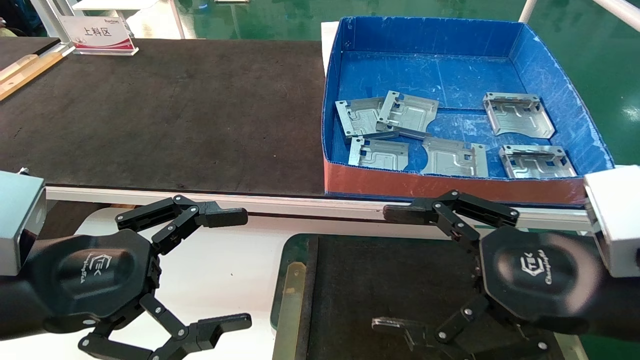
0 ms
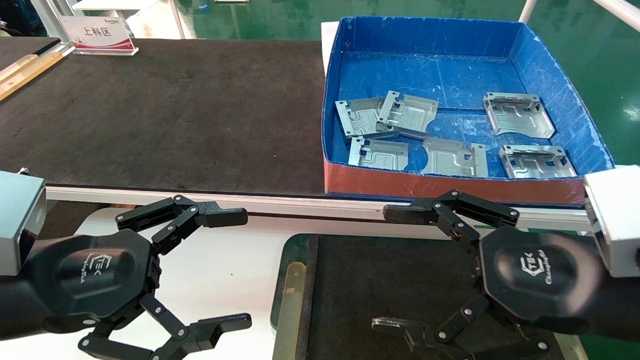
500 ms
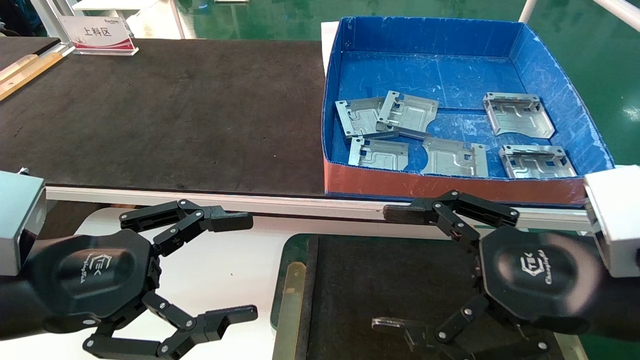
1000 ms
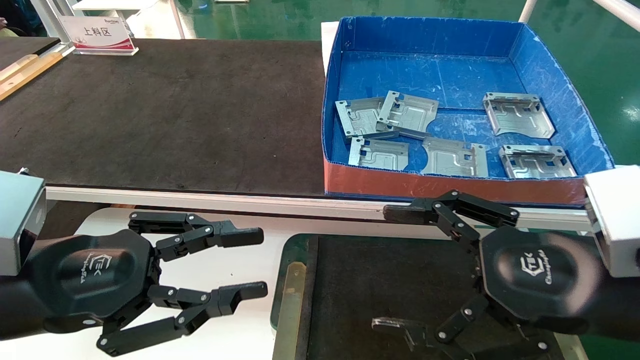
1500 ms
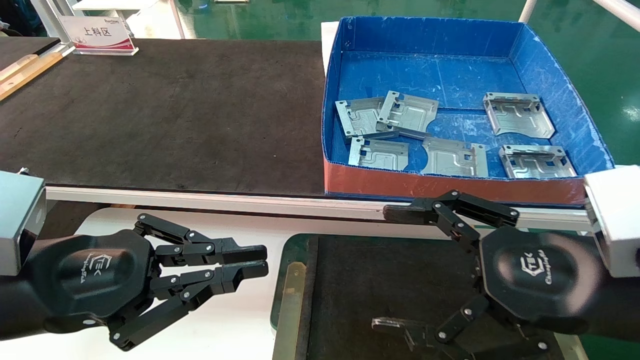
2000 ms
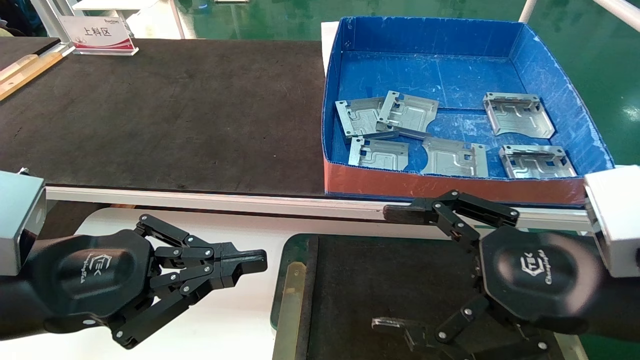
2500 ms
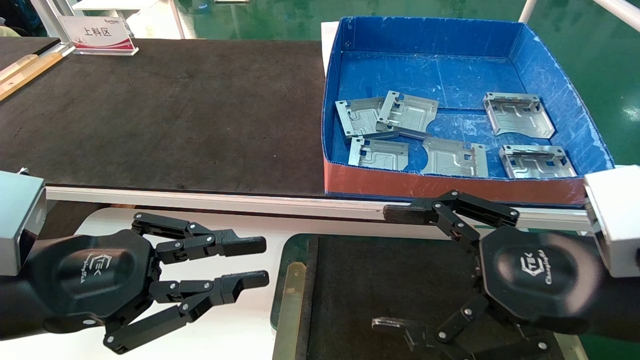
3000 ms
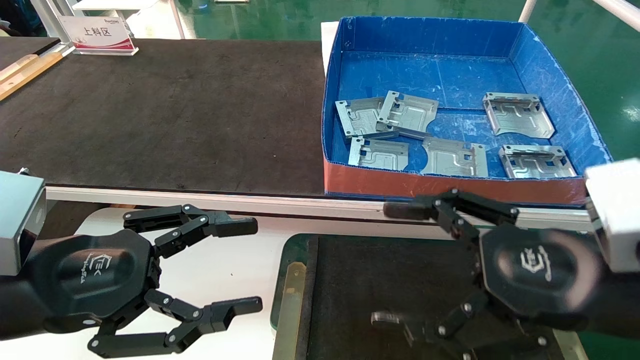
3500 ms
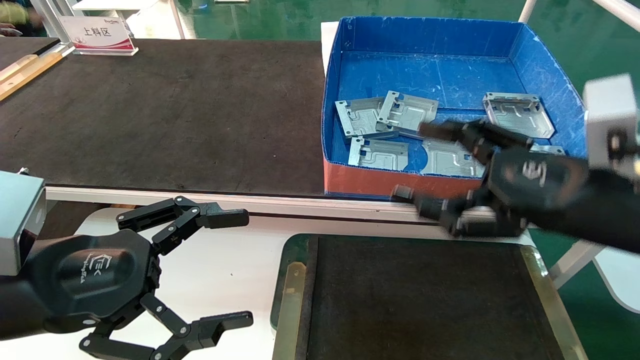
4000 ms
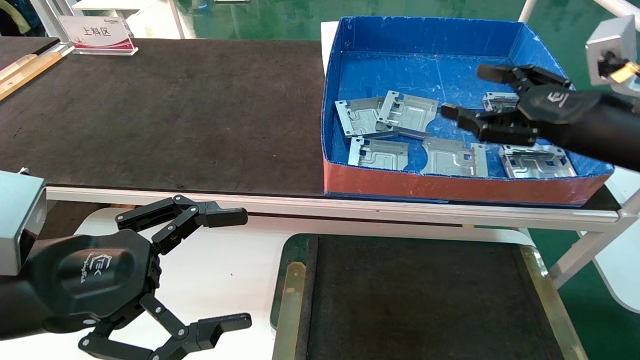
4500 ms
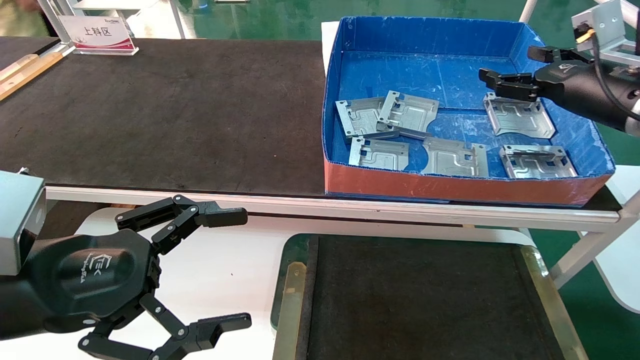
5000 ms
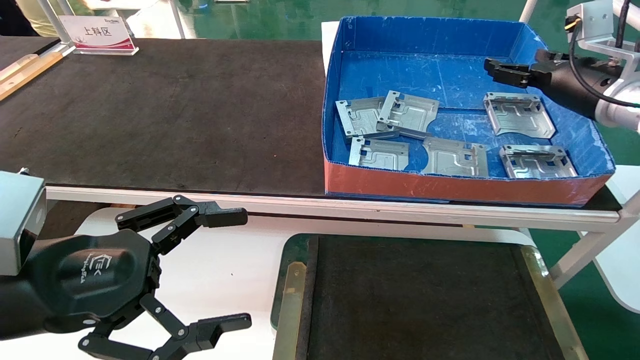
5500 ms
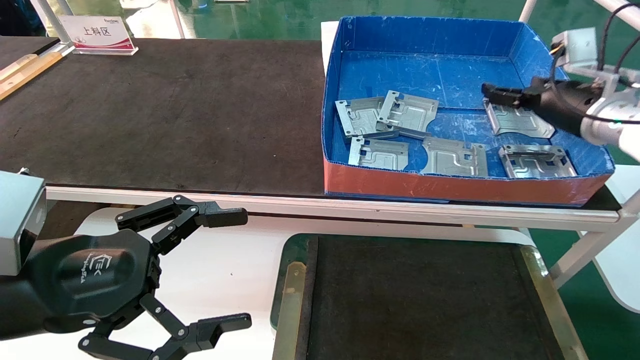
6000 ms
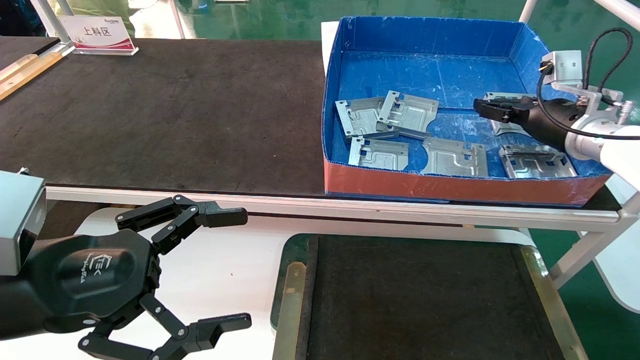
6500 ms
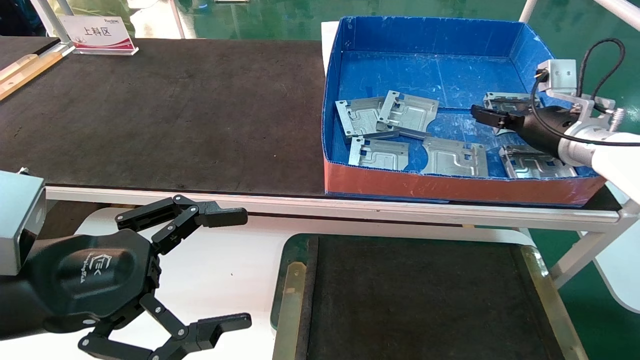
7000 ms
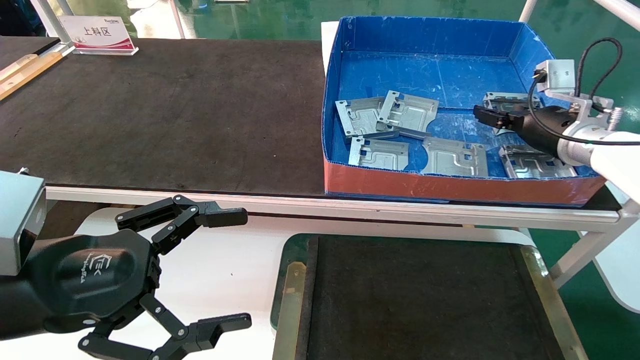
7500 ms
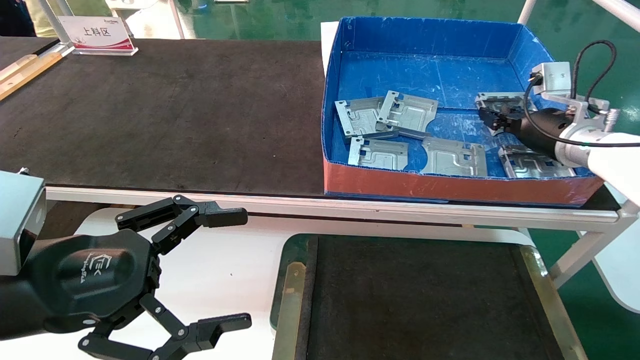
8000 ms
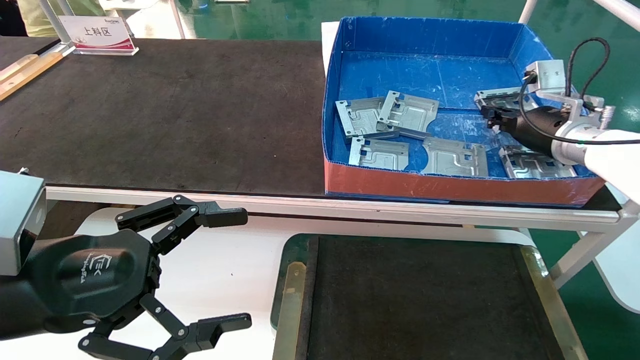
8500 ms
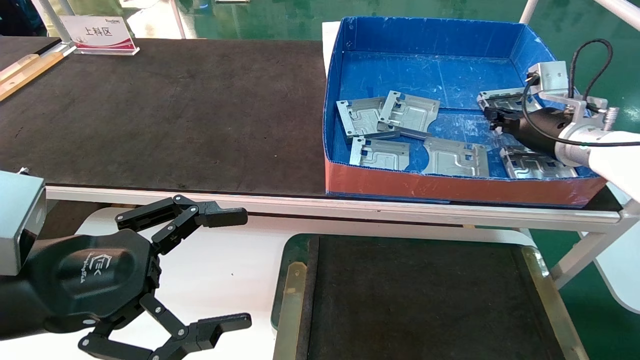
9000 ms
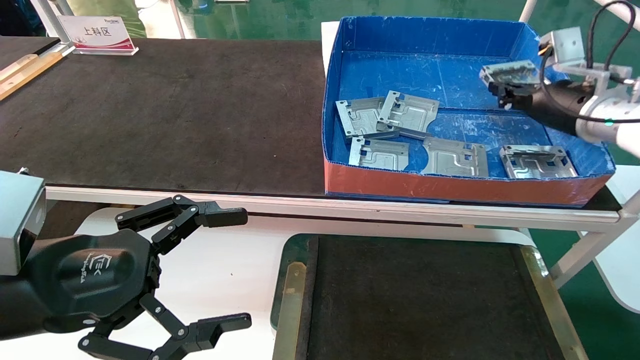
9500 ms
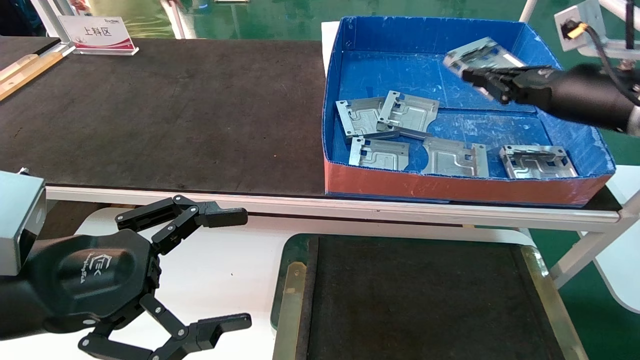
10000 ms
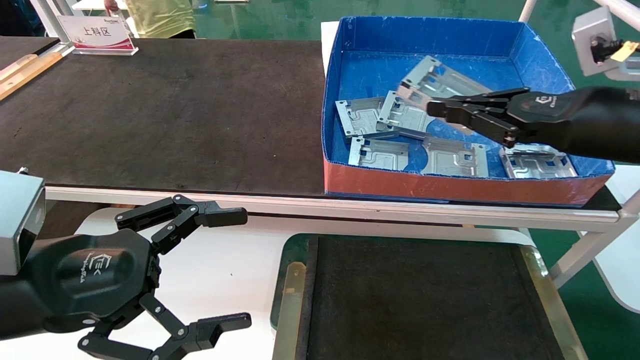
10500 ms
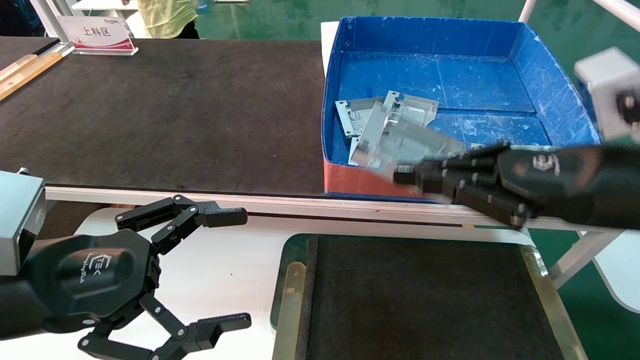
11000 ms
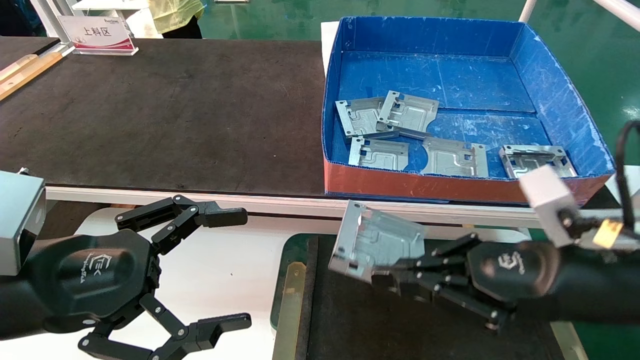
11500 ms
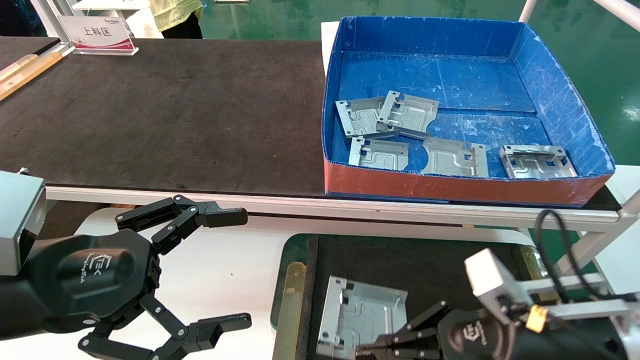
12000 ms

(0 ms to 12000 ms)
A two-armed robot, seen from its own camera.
Task of the whole recording: pick up parts and place them into a black container.
Step, 4000 ms - 8500 ms: Pick up the hard drive bracket from the feeding area.
0 ms - 2000 ms: The left gripper closes.
2000 ms - 4000 ms: The right gripper travels forward by roughly 5 cm. Meanwhile the left gripper opens.
4000 ms - 6000 ms: The right gripper moves forward and to the right, about 25 cm.
6000 ms - 8000 ms: The right gripper closes up.
8000 ms - 10000 ms: The right gripper goes some 10 cm backward and upward, and closes its fingers.
10000 ms - 12000 ms: The right gripper is displaced downward, backward and to the left by about 25 cm.

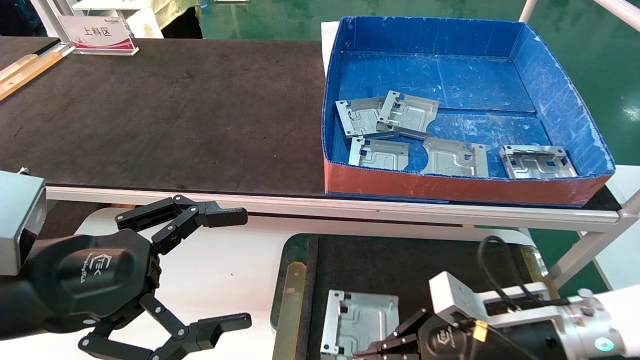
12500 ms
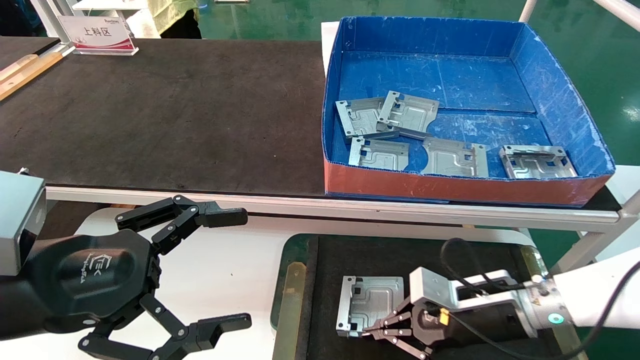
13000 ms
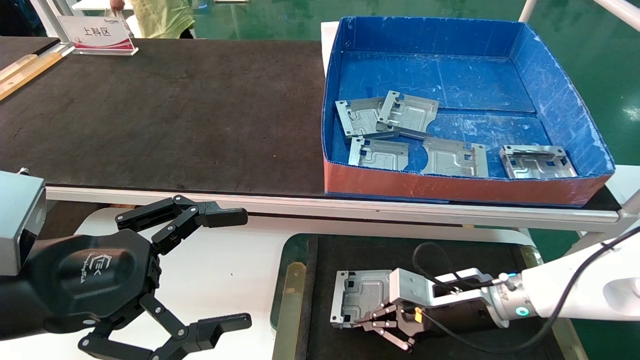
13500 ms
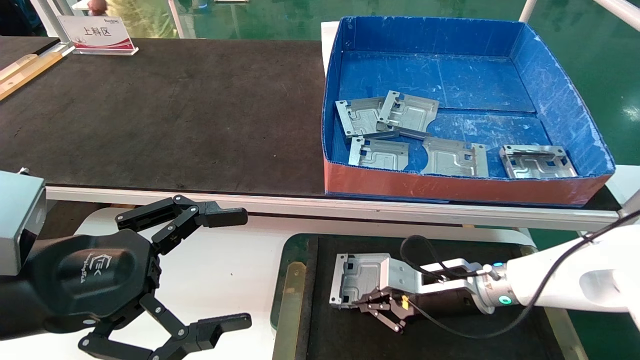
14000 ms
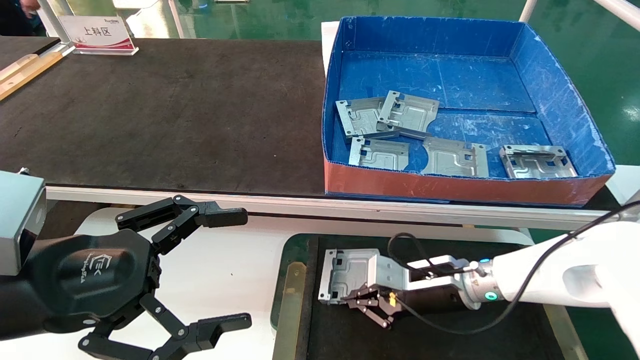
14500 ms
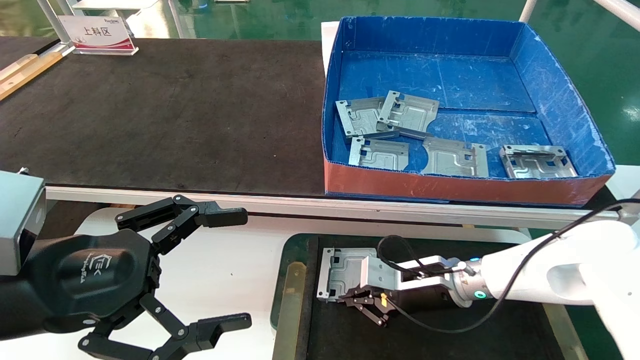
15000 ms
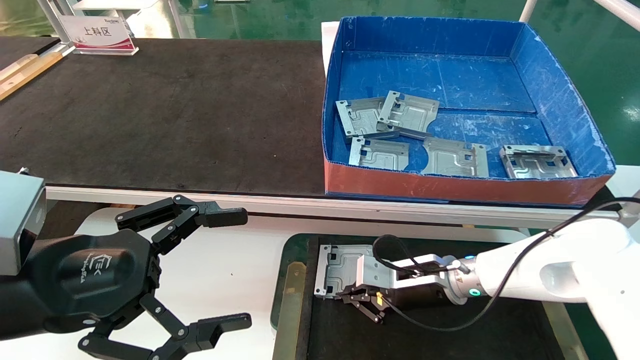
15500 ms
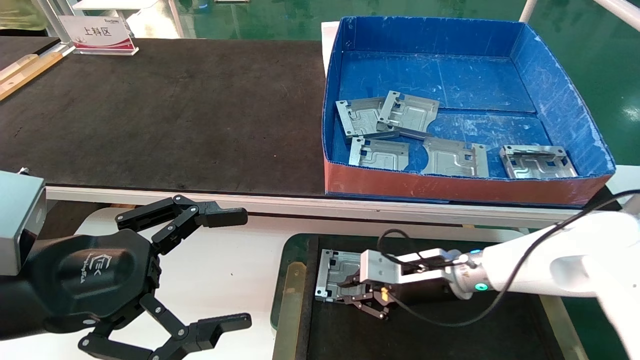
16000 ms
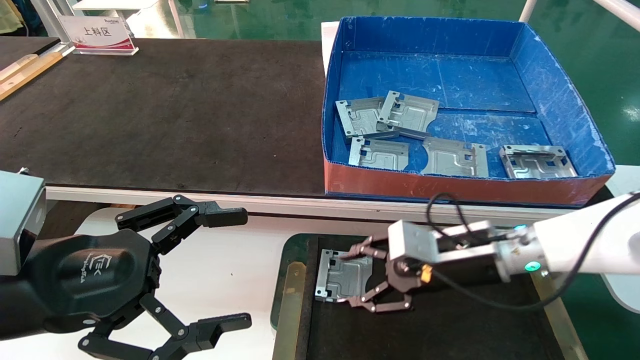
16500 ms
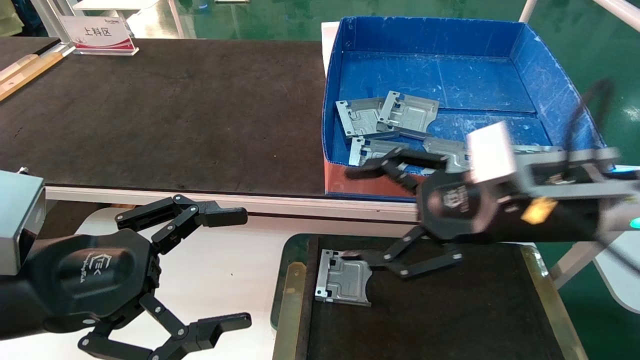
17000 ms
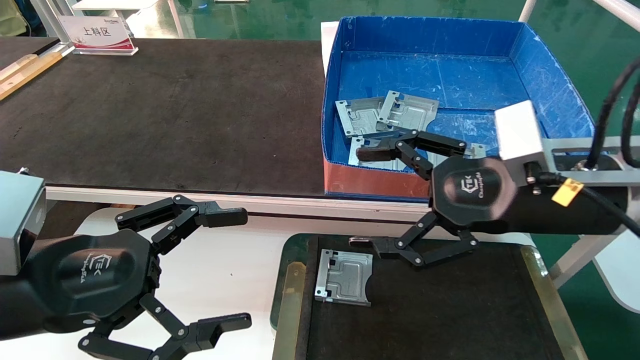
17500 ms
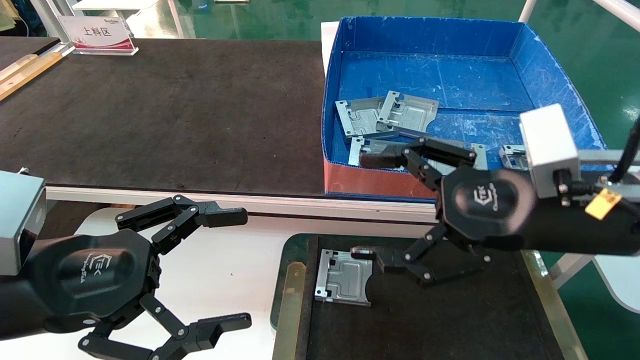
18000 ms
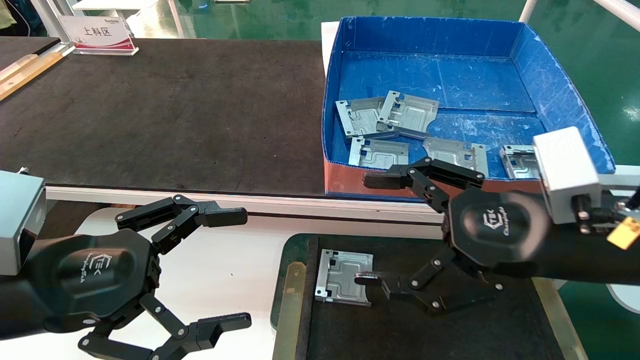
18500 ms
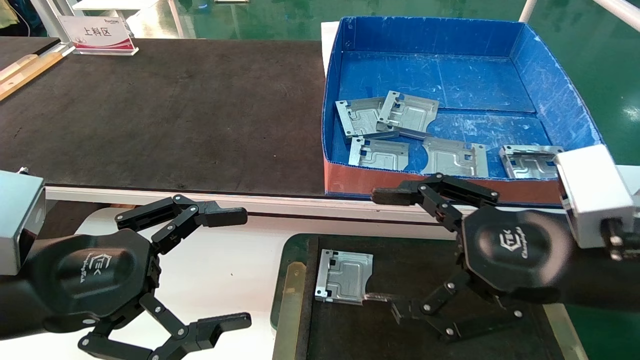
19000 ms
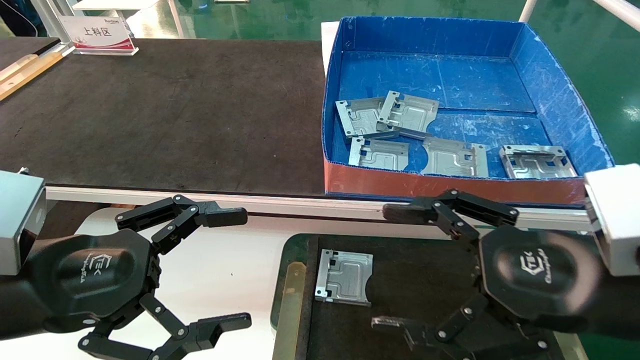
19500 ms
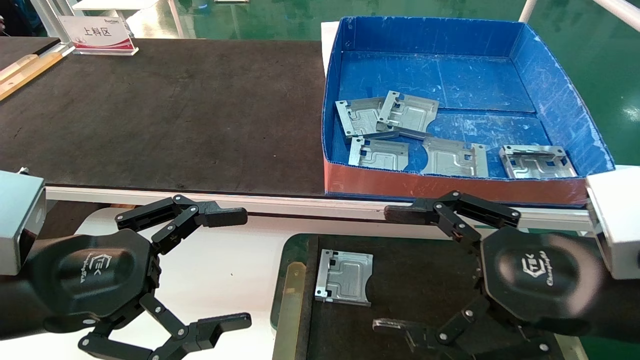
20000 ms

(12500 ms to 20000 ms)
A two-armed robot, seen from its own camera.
Task of the whole recording: pick up parts and place them into a black container.
Step, 12500 ms - 15500 ms: Place the hard drive bracket into the box.
12500 ms - 14500 ms: The right gripper heads forward and to the left, covering about 10 cm.
14500 ms - 16500 ms: The right gripper goes roughly 10 cm upward, and opens up.
16500 ms - 18000 ms: The right gripper heads backward and upward, covering some 15 cm, and opens its fingers.
18000 ms - 20000 ms: The right gripper travels backward by approximately 5 cm.
